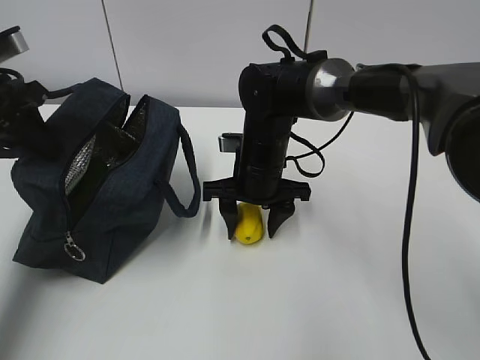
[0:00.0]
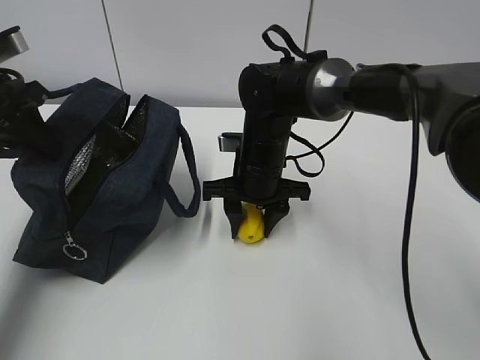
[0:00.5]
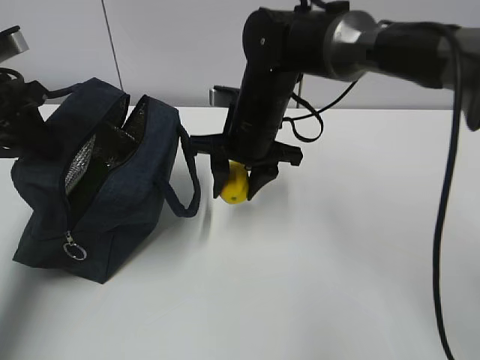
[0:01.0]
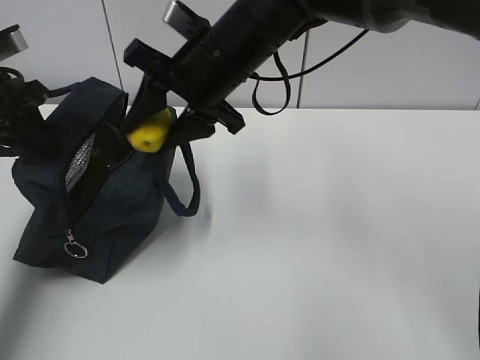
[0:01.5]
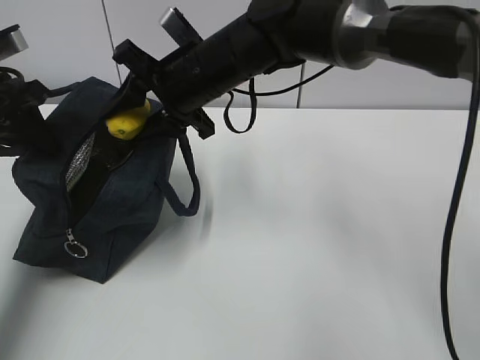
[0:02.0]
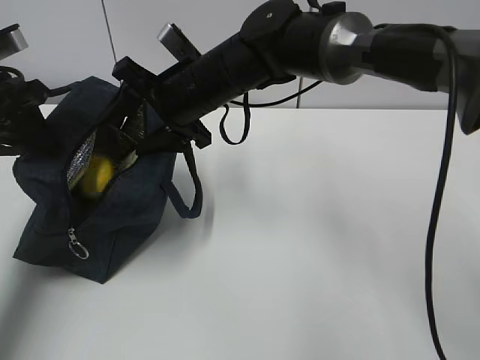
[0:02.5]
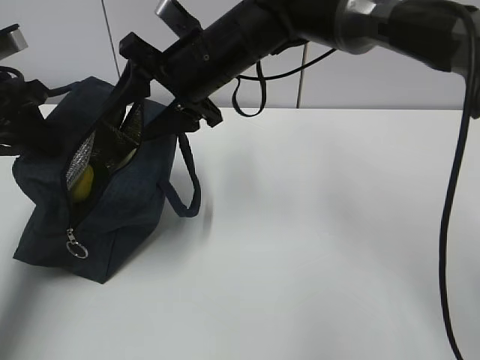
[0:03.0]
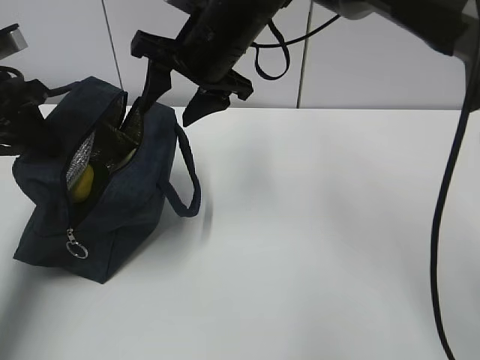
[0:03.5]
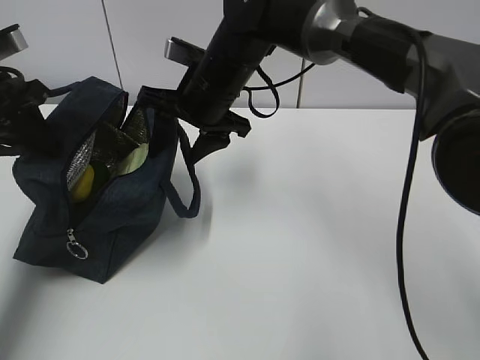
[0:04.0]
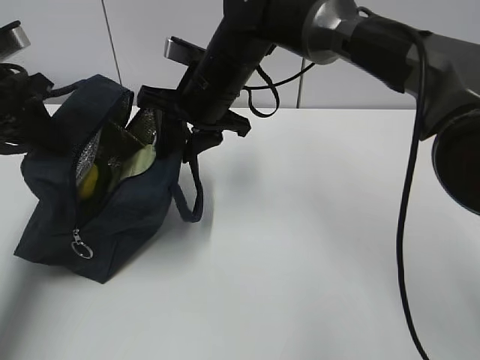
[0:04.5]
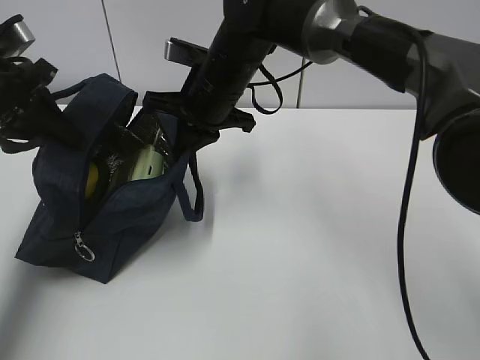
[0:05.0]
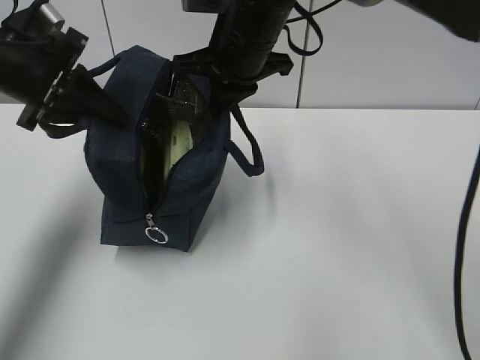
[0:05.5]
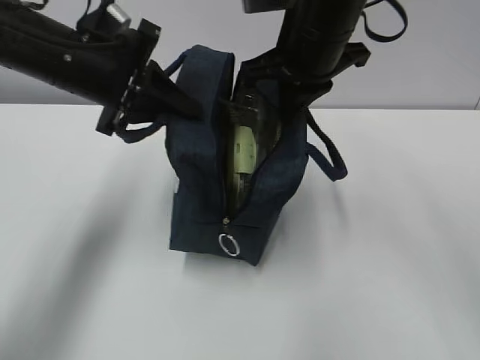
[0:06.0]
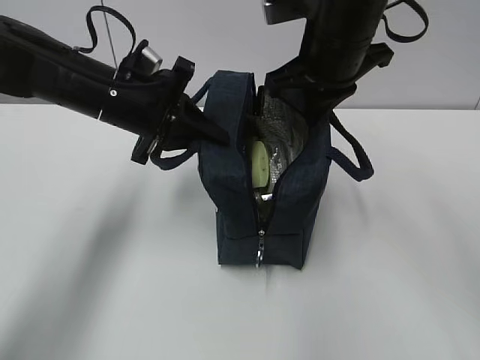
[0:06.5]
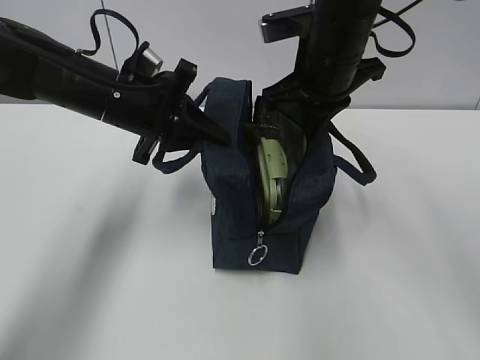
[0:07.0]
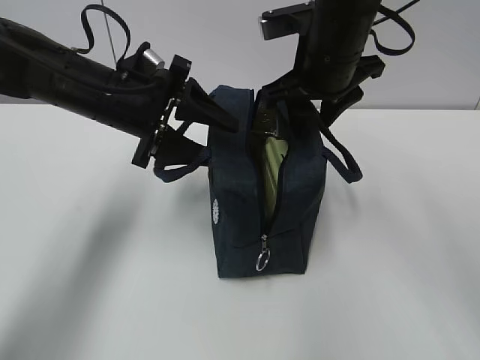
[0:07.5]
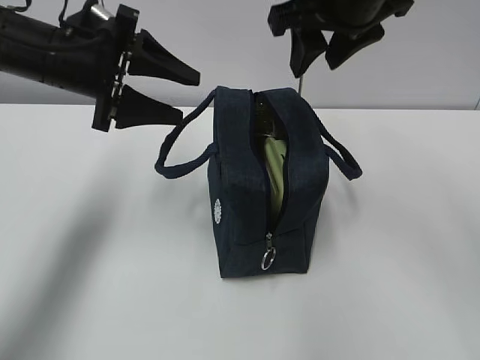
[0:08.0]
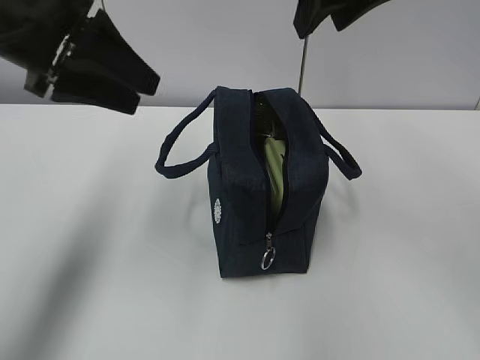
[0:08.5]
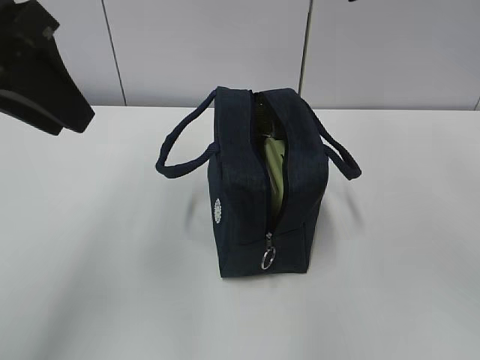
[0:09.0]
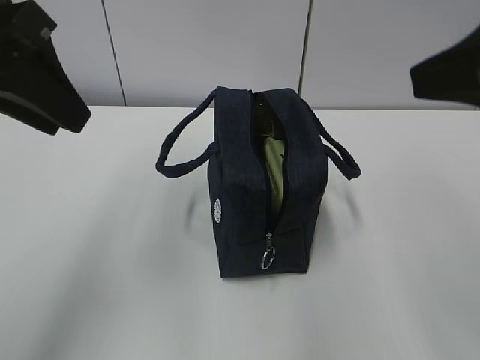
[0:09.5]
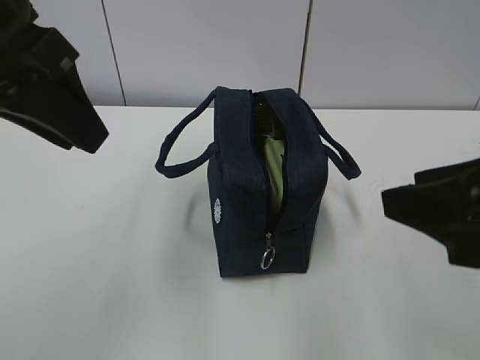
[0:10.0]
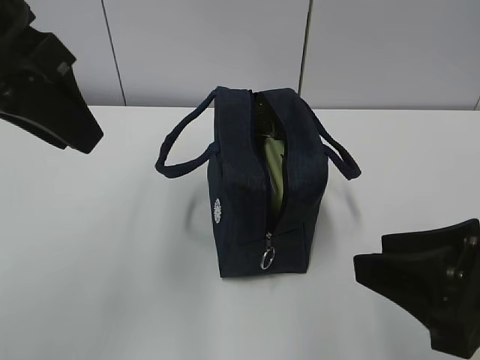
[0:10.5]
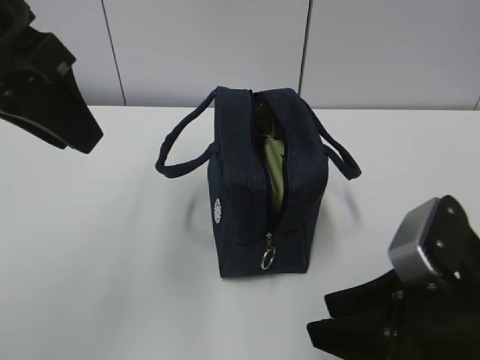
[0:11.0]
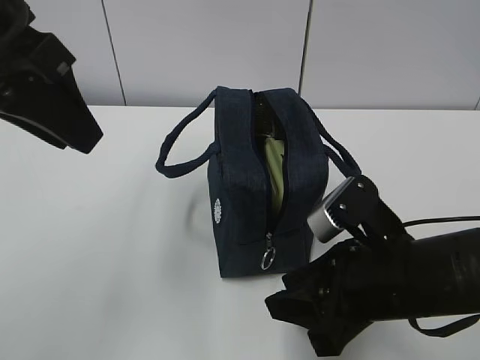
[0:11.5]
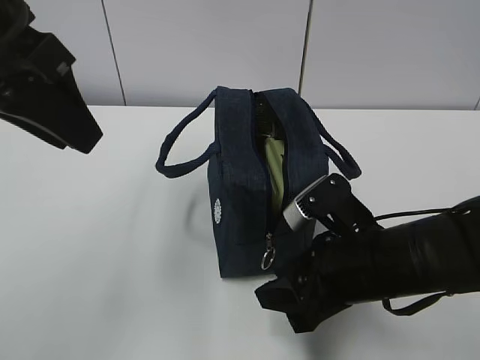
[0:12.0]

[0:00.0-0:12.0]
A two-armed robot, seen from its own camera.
Step, 0:00.5 to 0:02.5: Place the lemon into the package with the right gripper.
0:00.0 to 0:02.0: The right gripper moves upward and to the left, approximately 15 cm.
0:04.0 to 0:06.0: The right gripper travels to the right and upward by approximately 10 cm, and closes; the left gripper moves to the right, about 15 cm.
0:06.0 to 0:08.0: The right gripper ends up roughly 5 cm from where it was, and opens. The left gripper opens its fingers.
0:08.0 to 0:10.0: The left gripper is displaced backward and upward by some 15 cm. The right gripper goes roughly 20 cm backward.
0:10.0 to 0:12.0: The right gripper goes about 20 cm downward, forward and to the left.

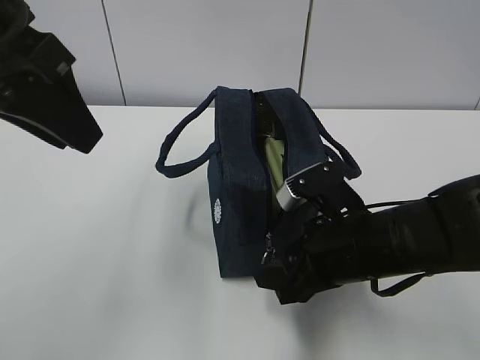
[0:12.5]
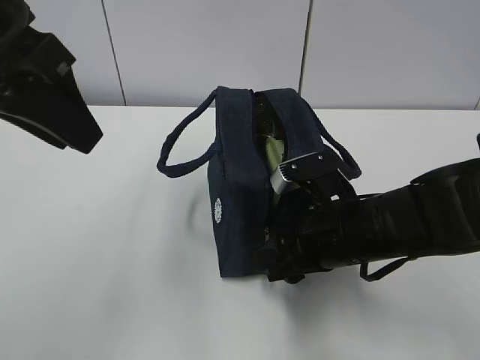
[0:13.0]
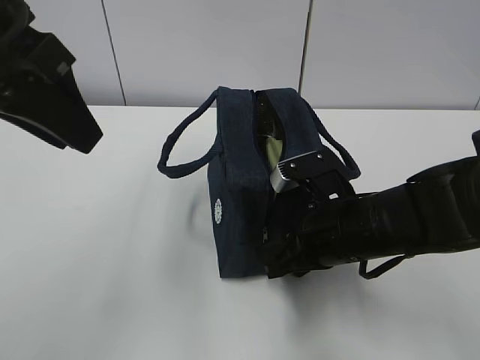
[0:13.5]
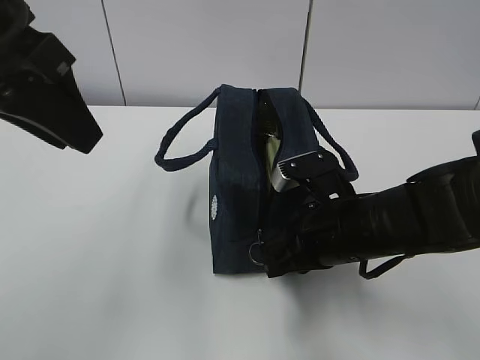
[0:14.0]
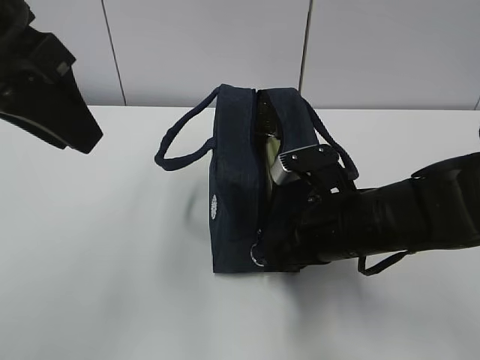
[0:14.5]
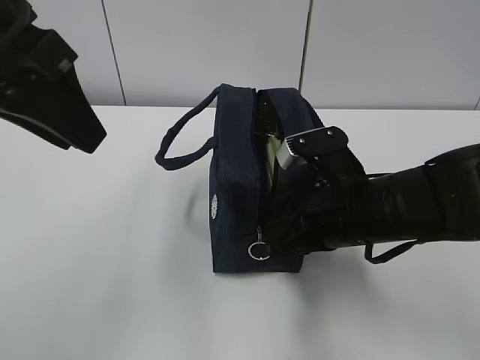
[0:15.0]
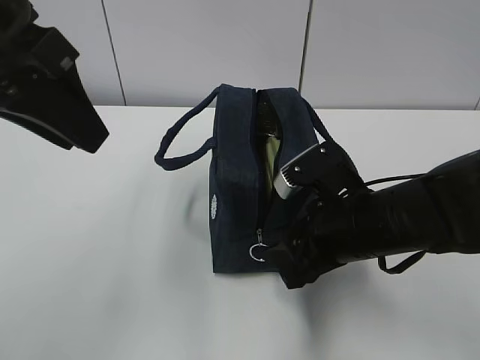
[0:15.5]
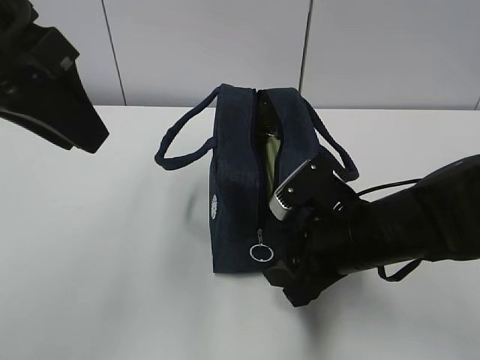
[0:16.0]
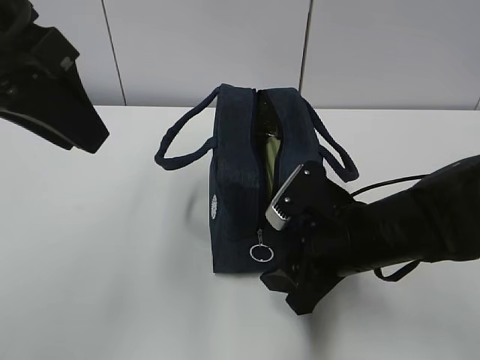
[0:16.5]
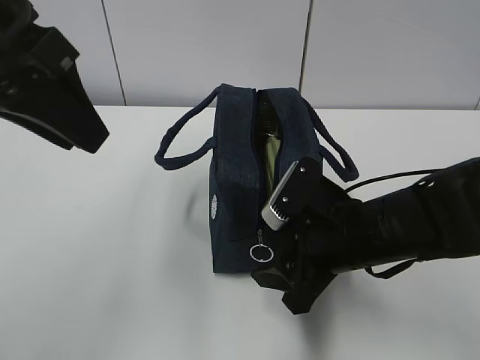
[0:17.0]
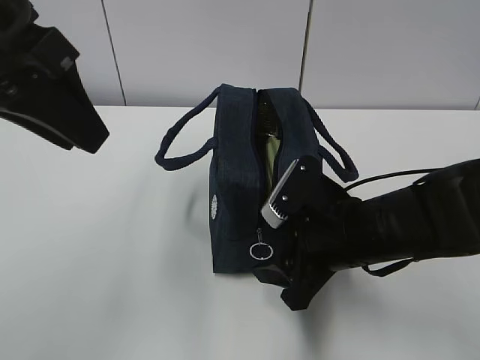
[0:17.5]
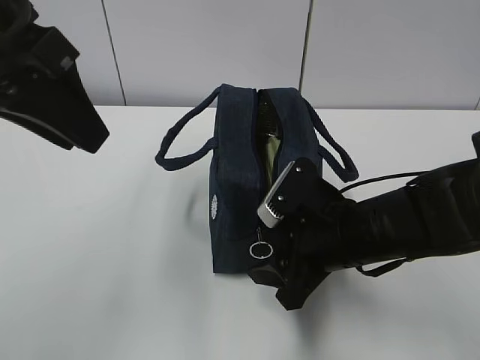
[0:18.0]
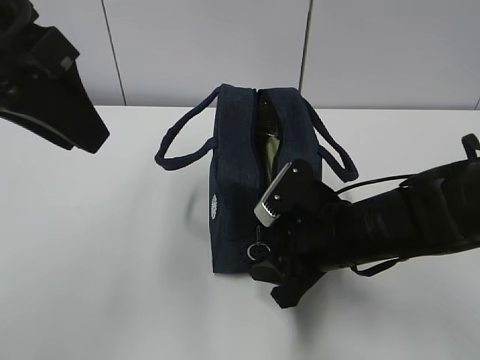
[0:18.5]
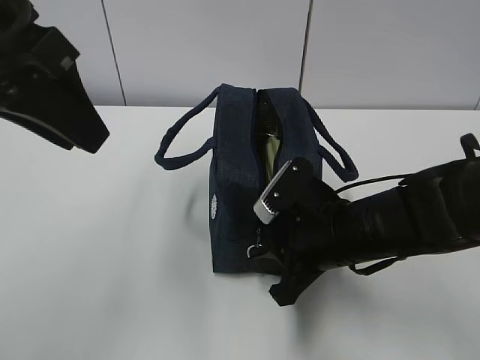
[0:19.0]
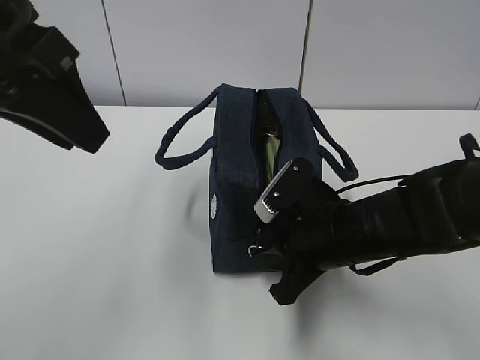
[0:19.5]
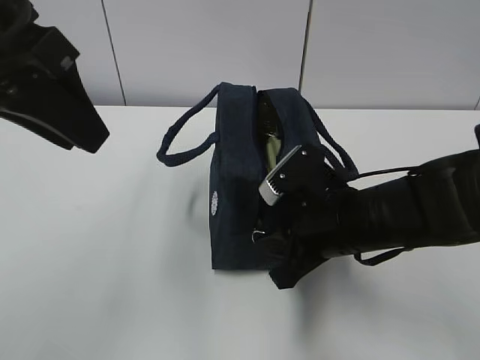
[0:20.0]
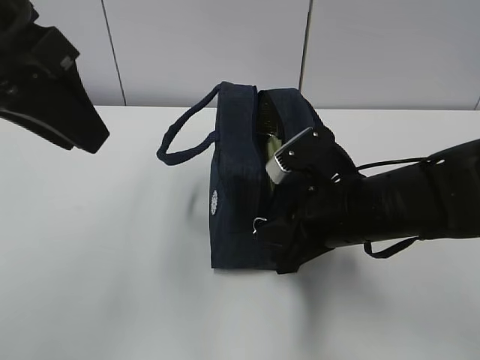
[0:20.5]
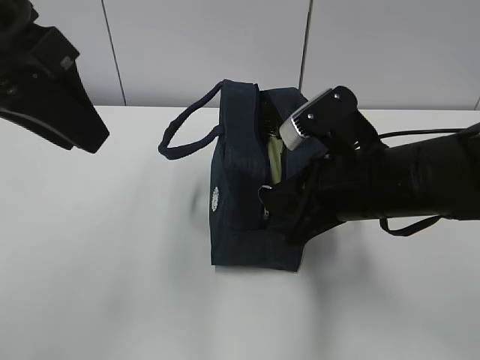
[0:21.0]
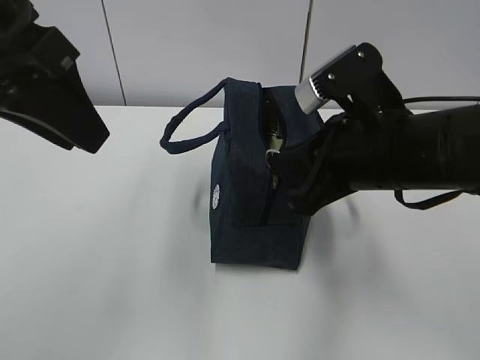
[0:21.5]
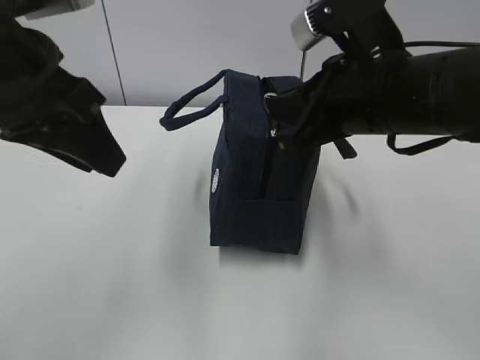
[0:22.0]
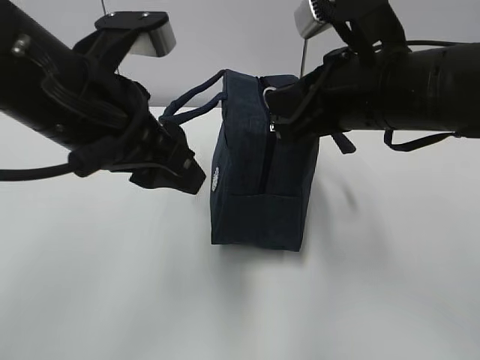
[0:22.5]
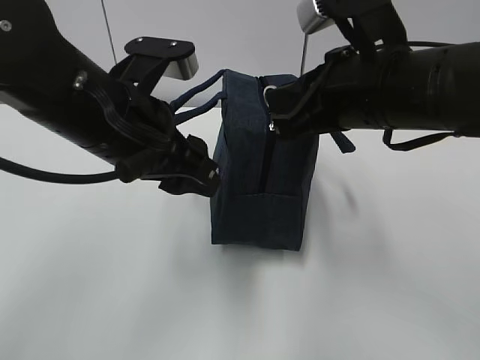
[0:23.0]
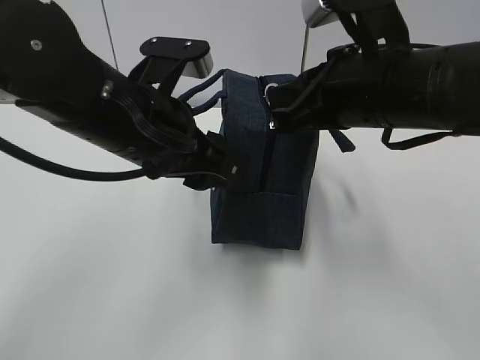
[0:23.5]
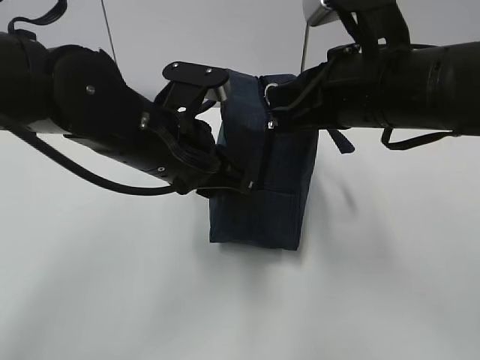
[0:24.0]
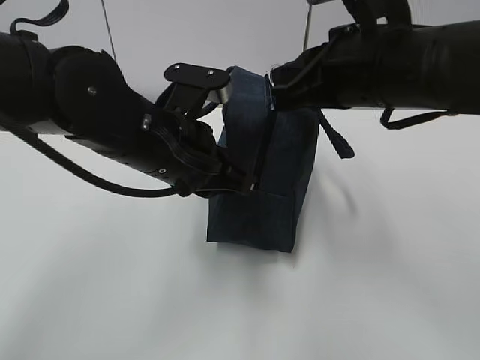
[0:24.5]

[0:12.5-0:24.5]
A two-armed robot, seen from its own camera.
0:12.5 to 0:14.5: The right gripper closes its fingers.
0:14.5 to 0:16.5: The right gripper opens.
0:16.5 to 0:18.5: There are only small adjustments of the grippers.
0:18.5 to 0:20.5: The right gripper closes up.
0:20.5 to 0:22.5: The right gripper is displaced upward by approximately 10 cm. The left gripper is displaced downward and to the right by about 10 cm.
0:22.5 to 0:24.5: The left gripper goes about 5 cm downward, and closes.

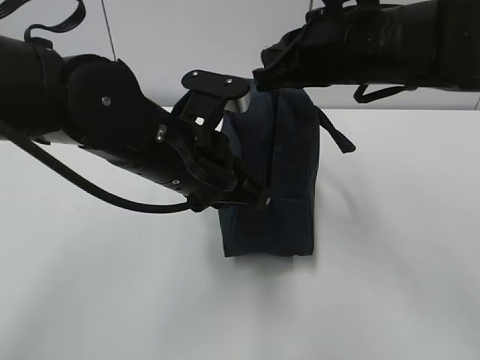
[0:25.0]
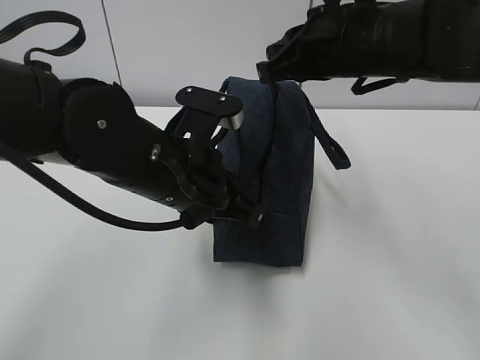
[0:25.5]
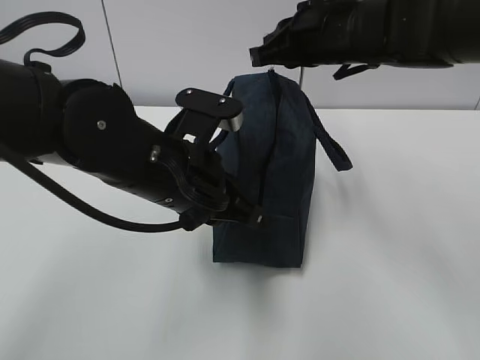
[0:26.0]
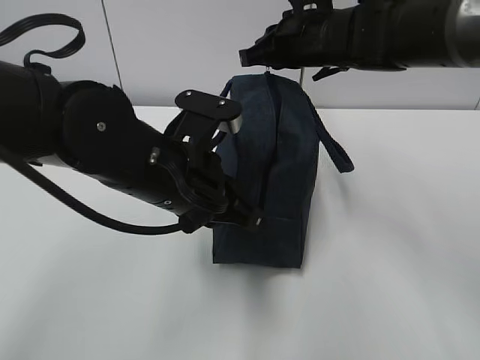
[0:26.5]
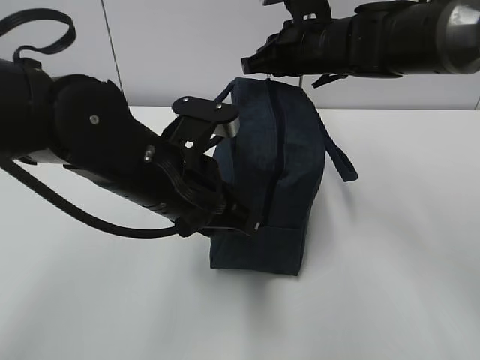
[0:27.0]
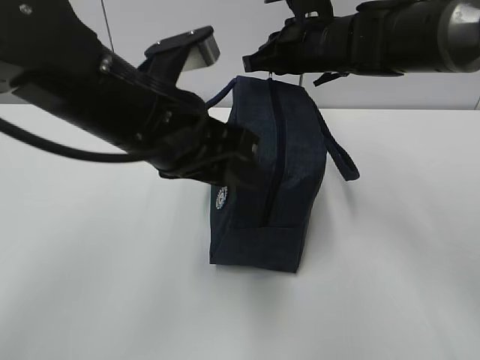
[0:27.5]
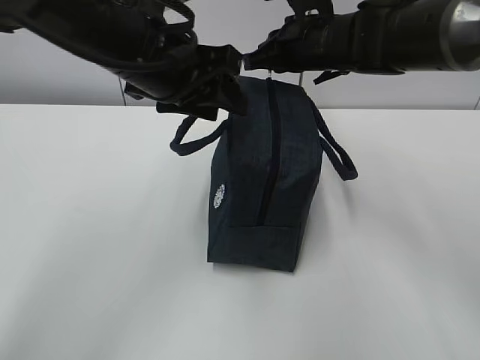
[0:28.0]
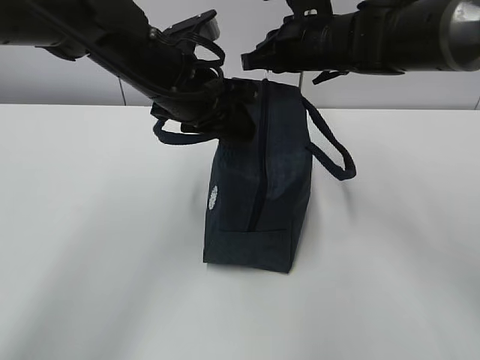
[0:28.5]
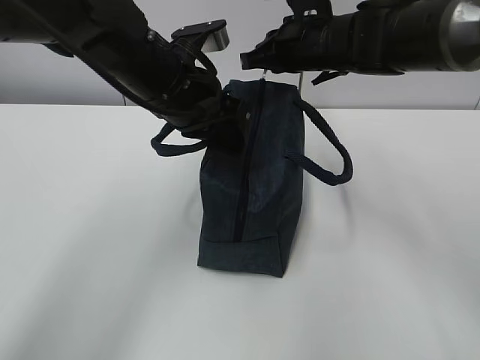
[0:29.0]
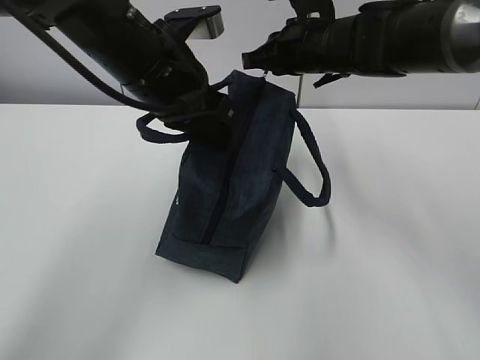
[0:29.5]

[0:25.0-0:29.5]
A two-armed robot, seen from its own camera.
0:25.0 to 0:27.0: The right gripper heads forward, covering roughly 15 cm.
0:27.0 to 0:29.5: The left gripper travels forward and upward by approximately 10 cm, and opens, then closes once more.
